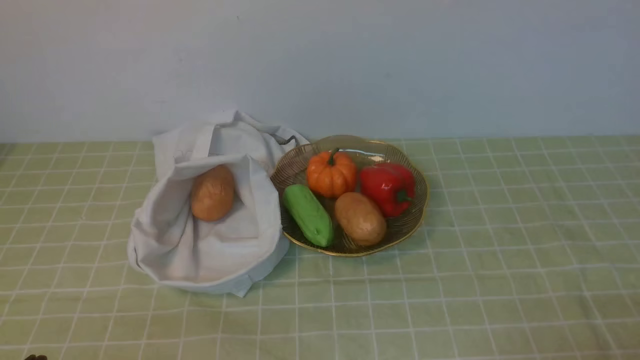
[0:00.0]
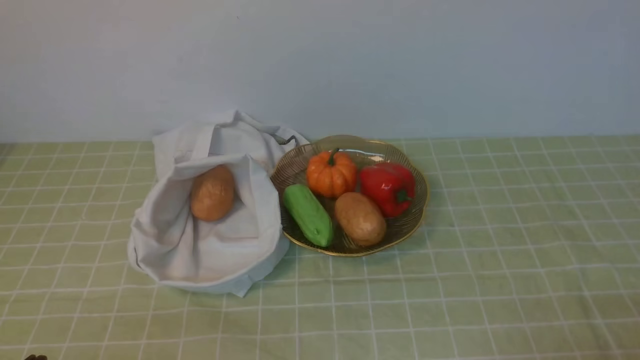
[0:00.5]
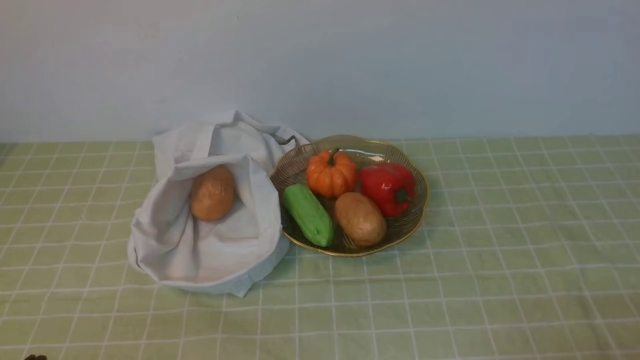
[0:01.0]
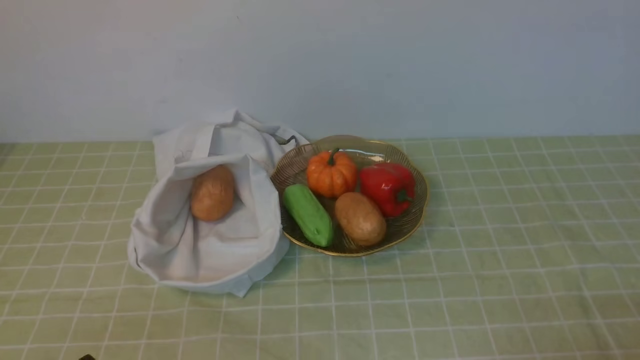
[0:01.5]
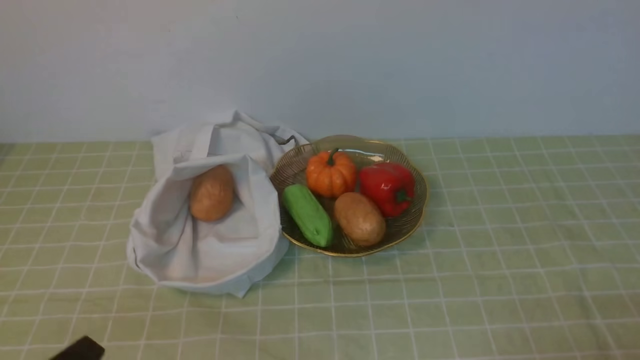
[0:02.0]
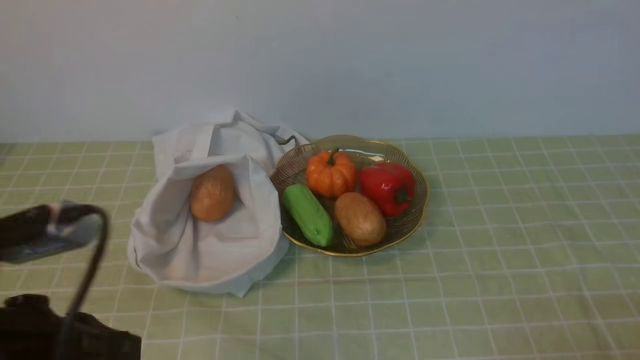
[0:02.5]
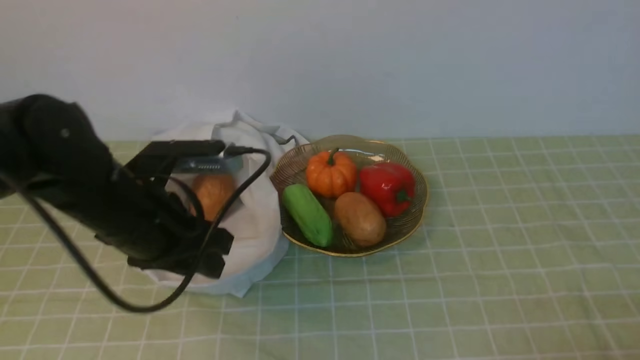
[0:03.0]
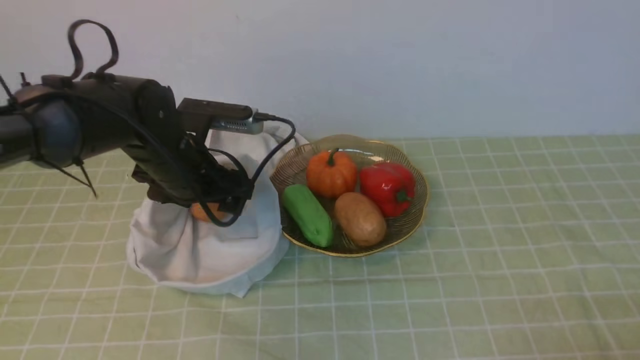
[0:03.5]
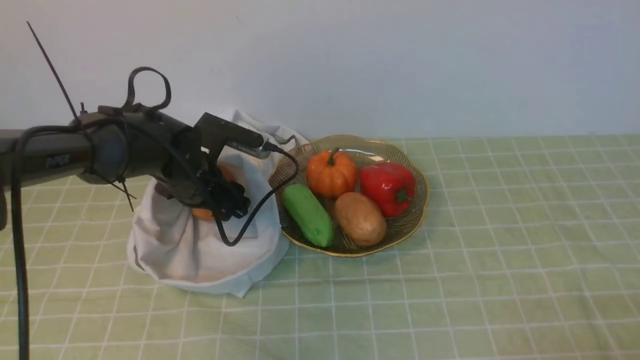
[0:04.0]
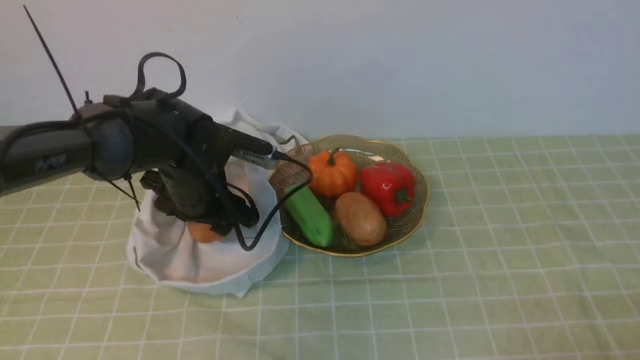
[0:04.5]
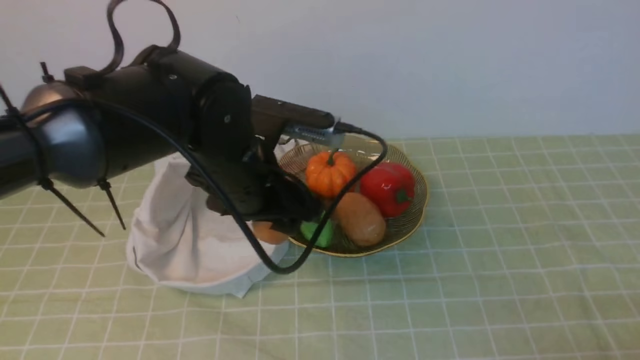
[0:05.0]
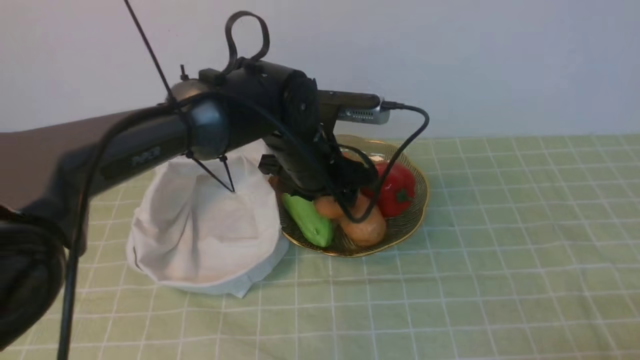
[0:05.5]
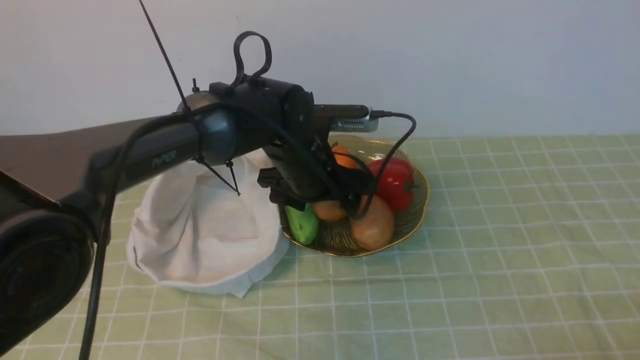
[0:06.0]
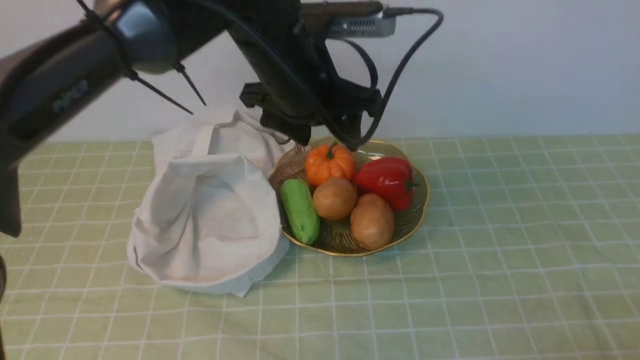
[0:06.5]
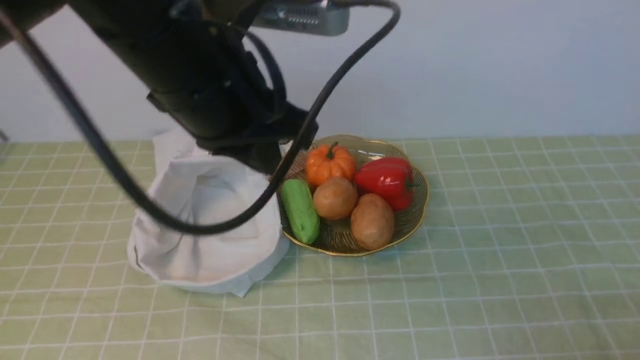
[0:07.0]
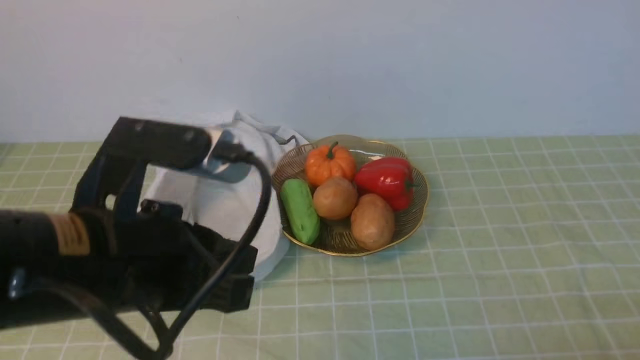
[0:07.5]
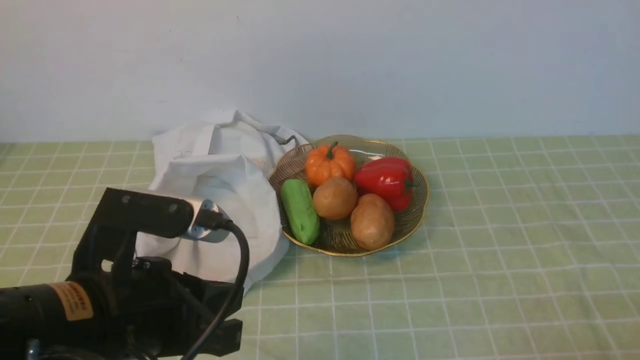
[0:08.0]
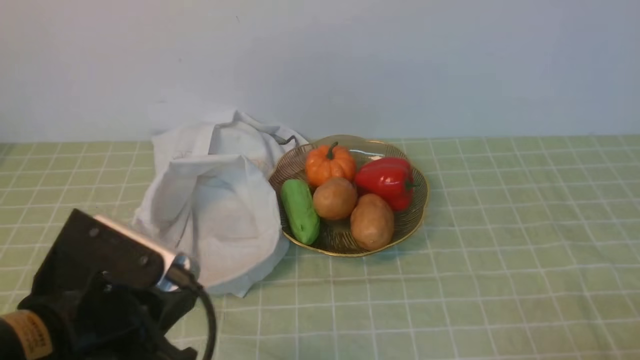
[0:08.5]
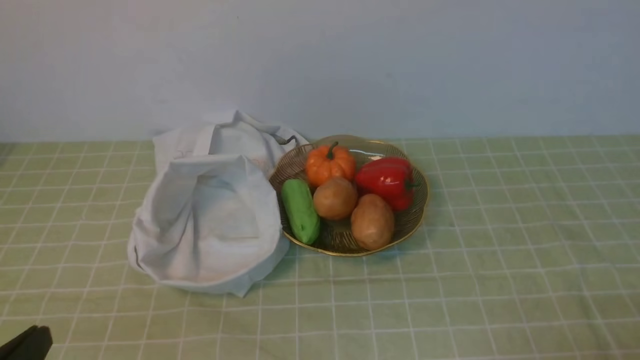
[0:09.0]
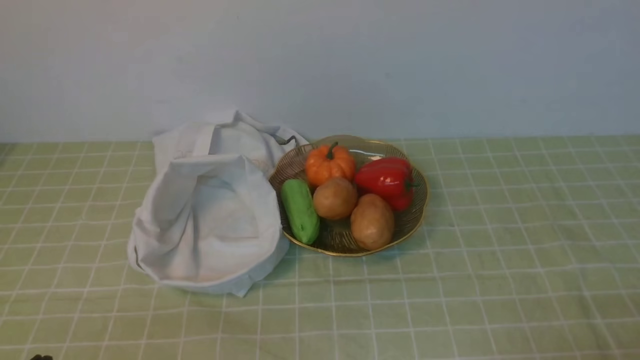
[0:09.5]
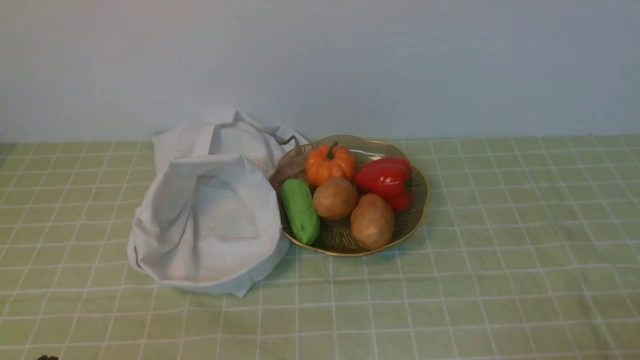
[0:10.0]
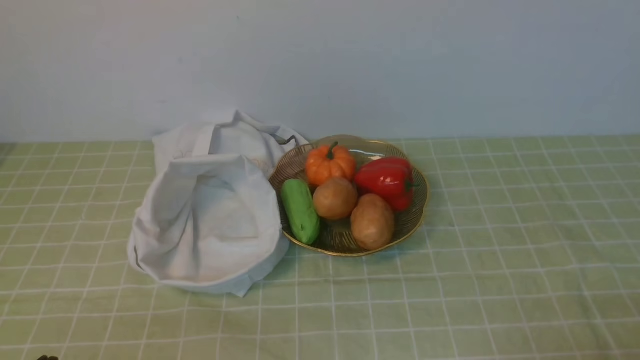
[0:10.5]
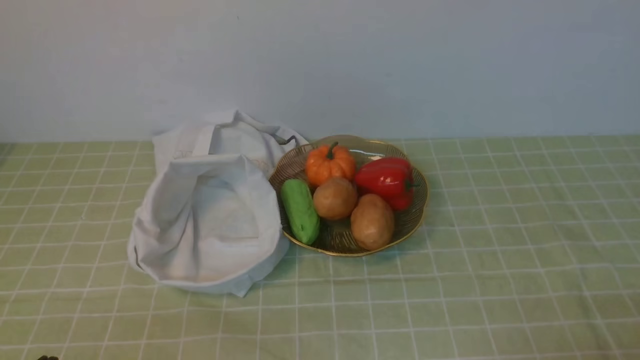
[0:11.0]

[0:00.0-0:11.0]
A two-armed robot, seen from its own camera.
Task of the whole recording: take vegetables from bag on green coffee tablecloth place on plate.
Step, 0:00.0 to 0:04.0: Grasp the potato with left gripper.
Step, 0:04.5 to 0:06.0: Place the potato on the plate with left gripper.
0:02.0 to 0:03.5: The left gripper travels forward by approximately 35 cm, and opens its fingers.
0:03.5 to 0:05.5: The left gripper goes about 15 cm to the right.
0:05.5 to 0:07.5: The left gripper goes some 25 cm backward, to the left and upward, and closes up.
0:07.5 to 0:09.0: The left gripper moves to the left, downward and backward, roughly 20 cm.

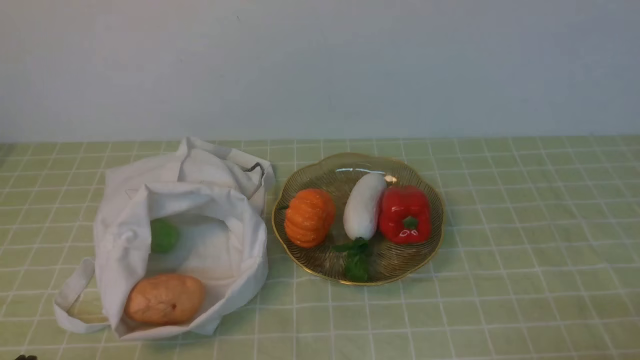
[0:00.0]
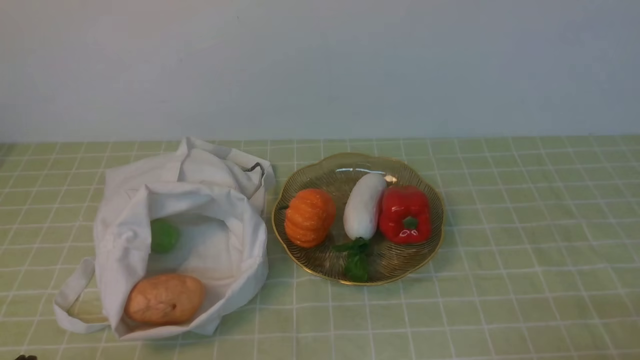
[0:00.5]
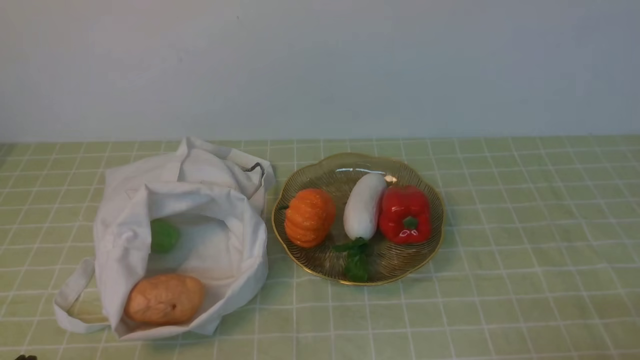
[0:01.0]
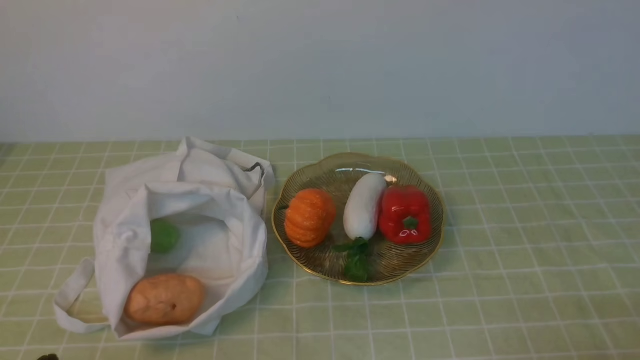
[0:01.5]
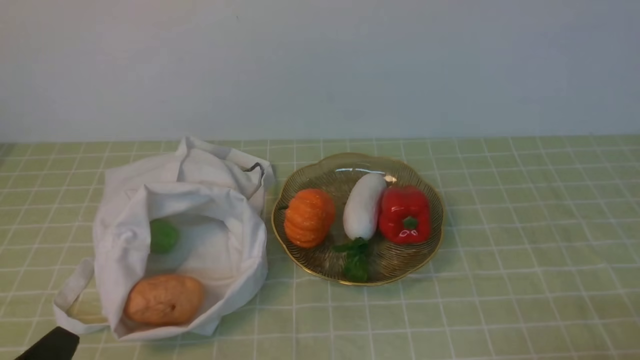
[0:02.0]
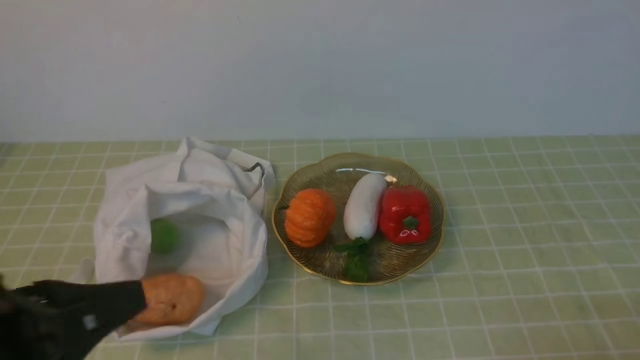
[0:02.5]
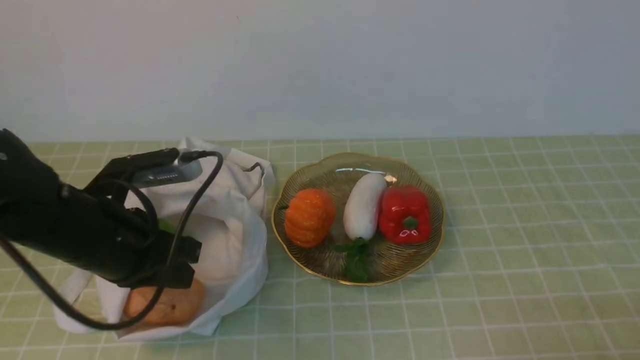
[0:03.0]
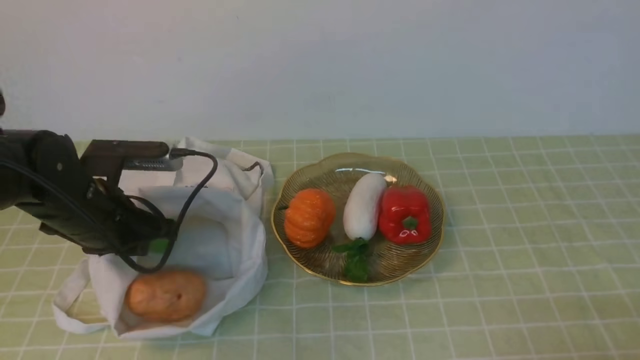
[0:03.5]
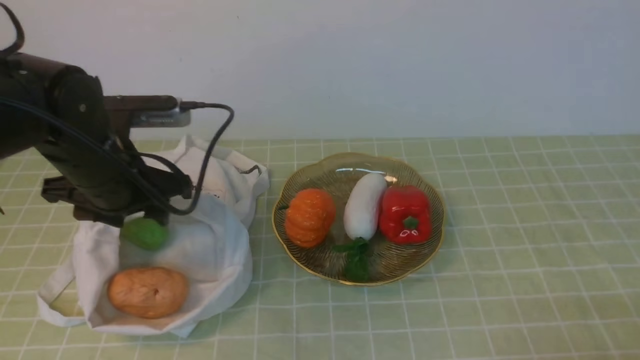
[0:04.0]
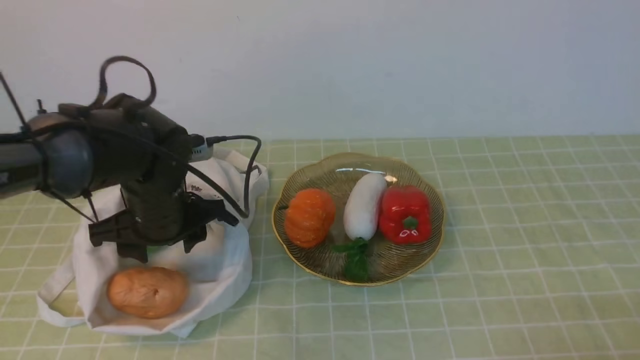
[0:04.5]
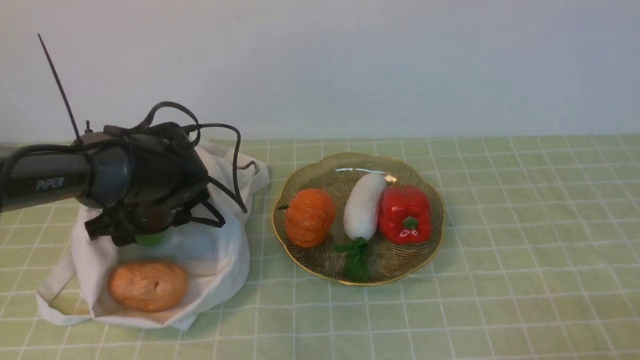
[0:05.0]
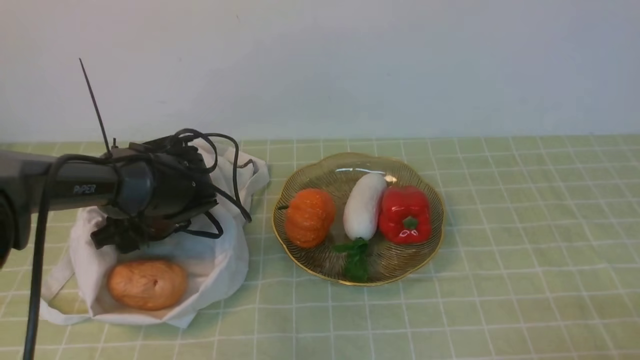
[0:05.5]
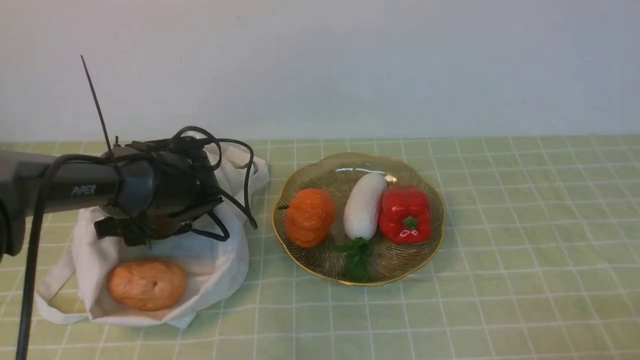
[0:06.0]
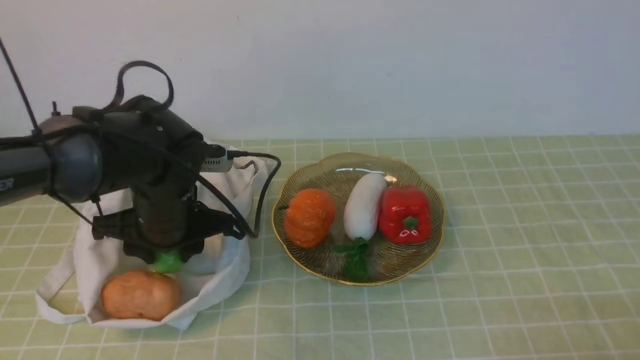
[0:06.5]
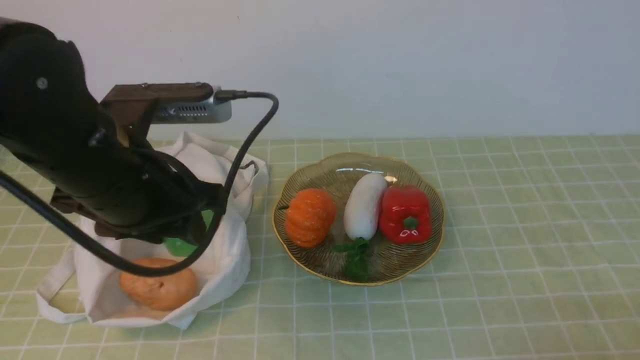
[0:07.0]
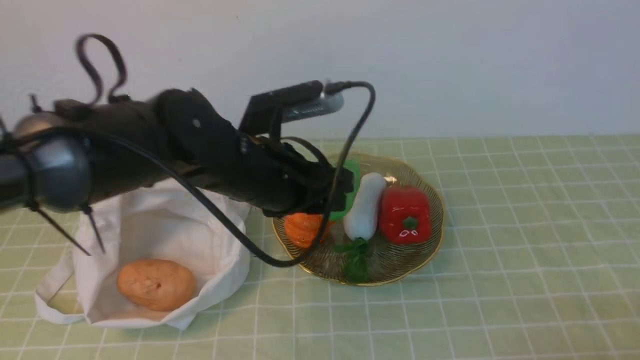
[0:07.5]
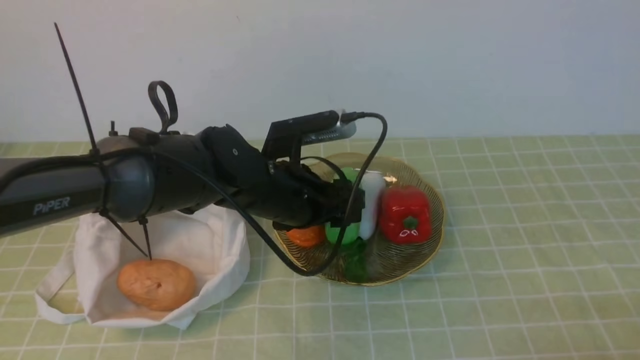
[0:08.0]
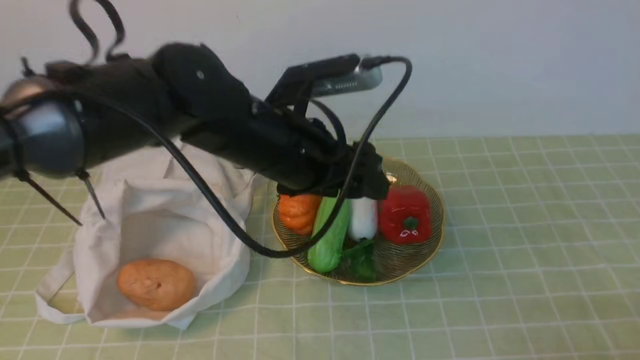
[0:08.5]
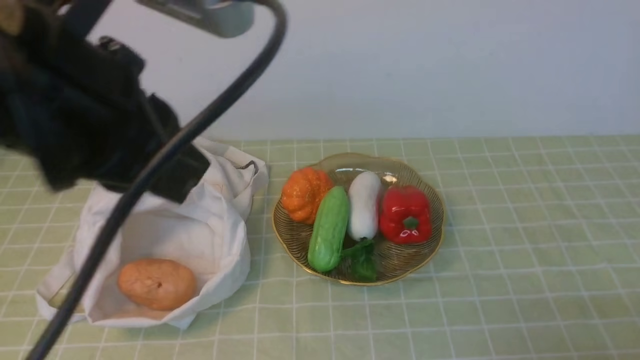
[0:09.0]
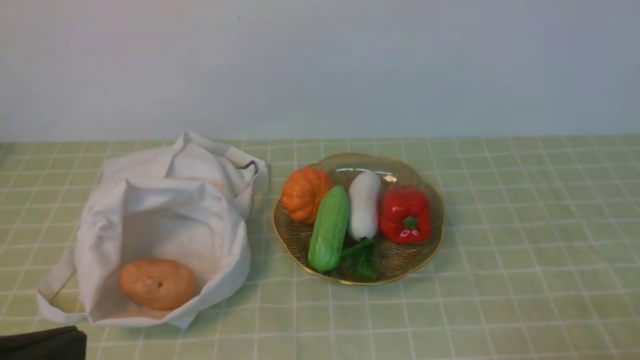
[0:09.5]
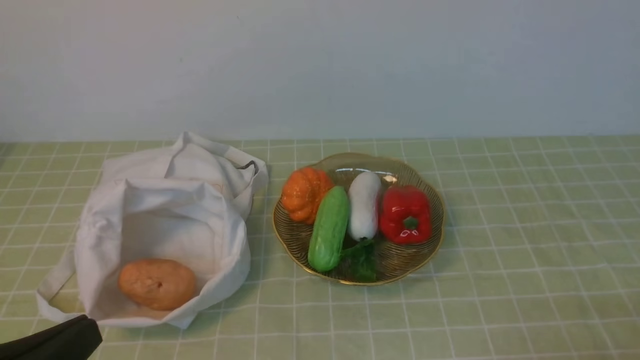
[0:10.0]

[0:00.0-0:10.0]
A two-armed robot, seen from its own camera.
Task of the whole recording: take vegetables from bag on green coffee tablecloth place on plate.
Step, 0:00.0 to 0:05.5: Grasp the bitter melon with left gripper.
Step, 0:06.0 to 0:08.0: Place the bitter melon on the plate with left gripper.
0:02.0 to 0:04.0: The left gripper moves forward, about 25 cm, and opens.
0:04.0 to 0:06.0: The left gripper shifts about 10 cm downward.
0:06.0 to 0:08.0: The left gripper travels to the right and upward by approximately 15 cm, and opens.
0:08.0 to 0:10.0: The left gripper travels backward and to the left by about 35 cm, and closes up.
